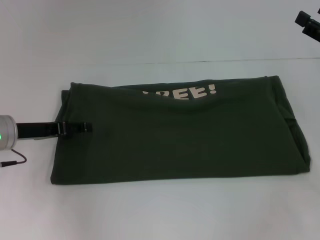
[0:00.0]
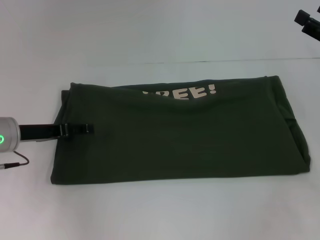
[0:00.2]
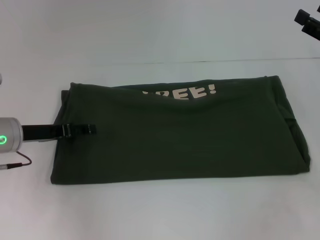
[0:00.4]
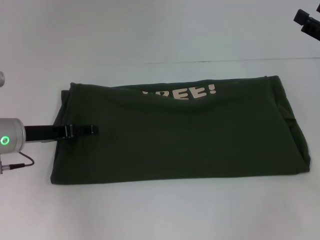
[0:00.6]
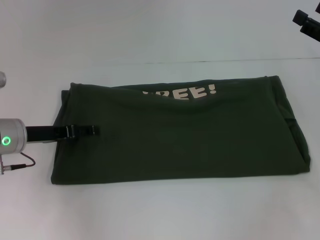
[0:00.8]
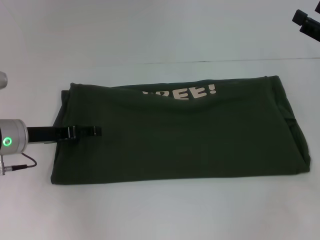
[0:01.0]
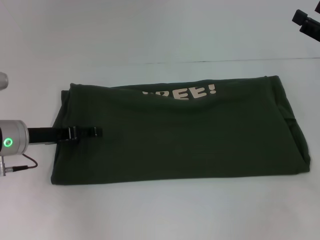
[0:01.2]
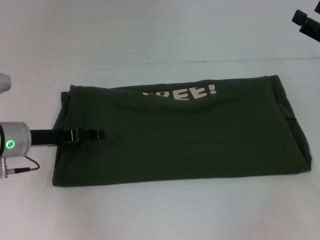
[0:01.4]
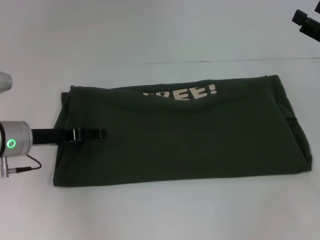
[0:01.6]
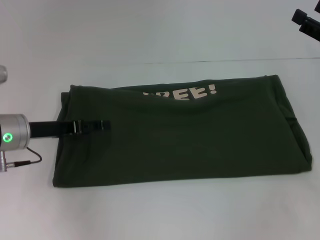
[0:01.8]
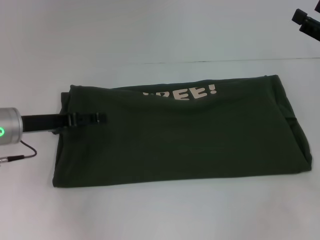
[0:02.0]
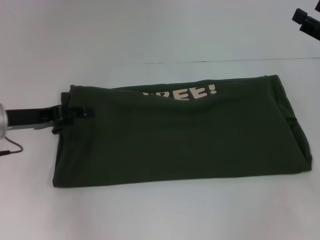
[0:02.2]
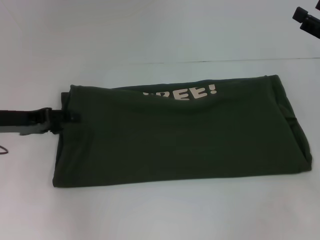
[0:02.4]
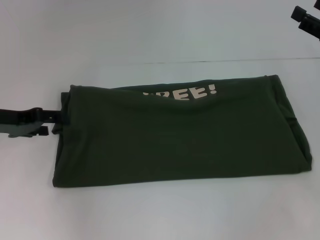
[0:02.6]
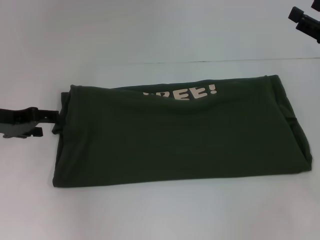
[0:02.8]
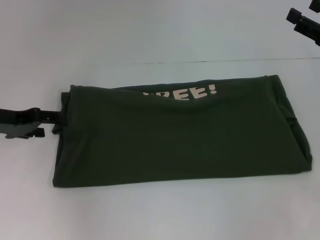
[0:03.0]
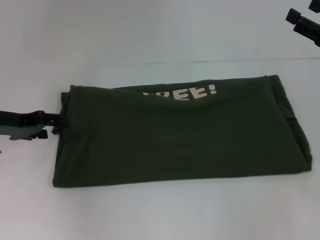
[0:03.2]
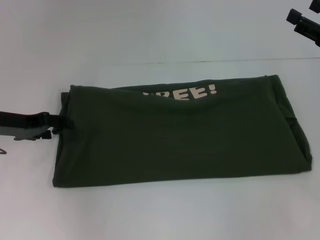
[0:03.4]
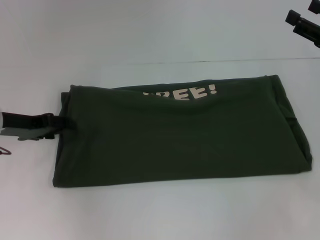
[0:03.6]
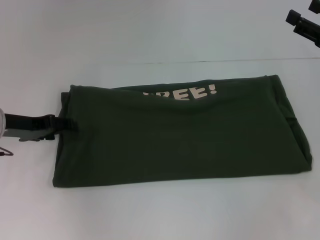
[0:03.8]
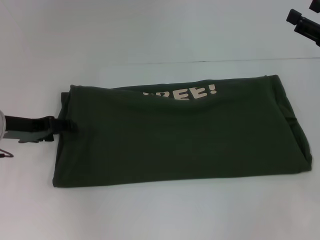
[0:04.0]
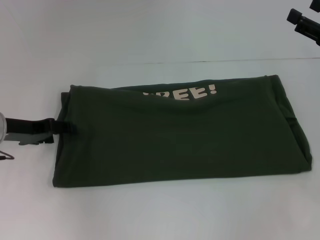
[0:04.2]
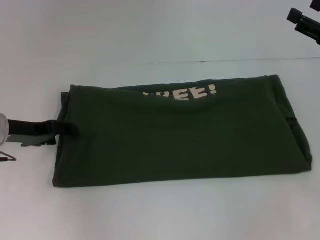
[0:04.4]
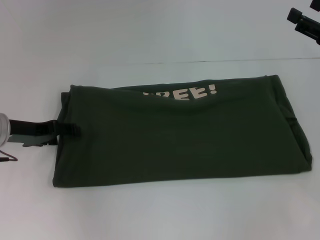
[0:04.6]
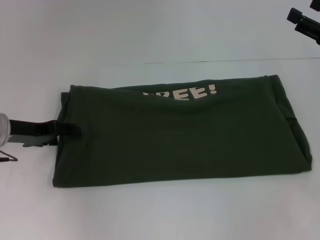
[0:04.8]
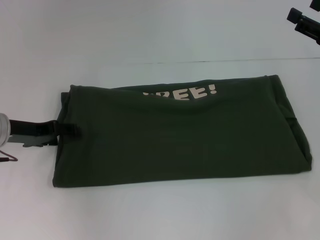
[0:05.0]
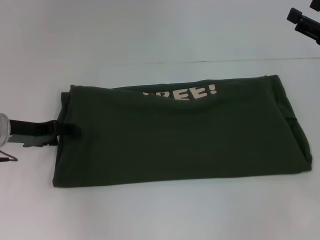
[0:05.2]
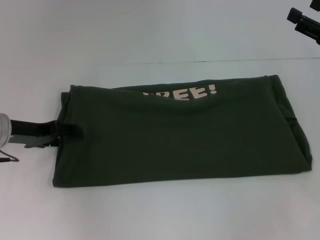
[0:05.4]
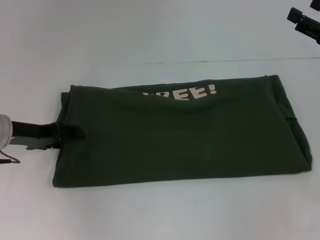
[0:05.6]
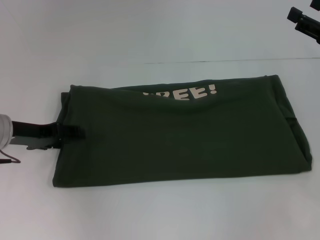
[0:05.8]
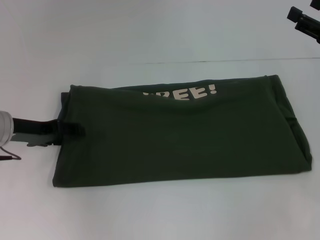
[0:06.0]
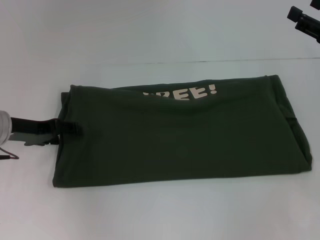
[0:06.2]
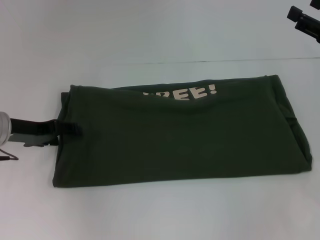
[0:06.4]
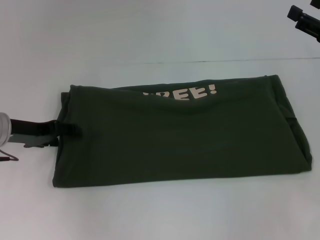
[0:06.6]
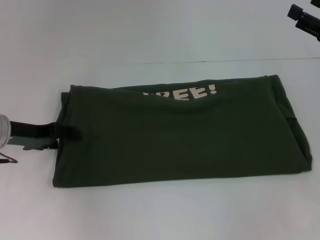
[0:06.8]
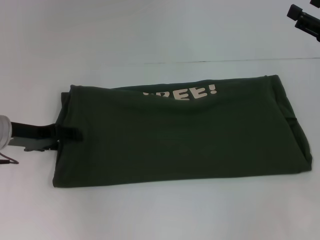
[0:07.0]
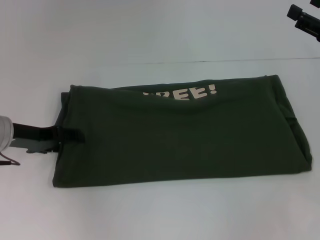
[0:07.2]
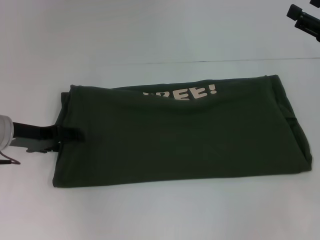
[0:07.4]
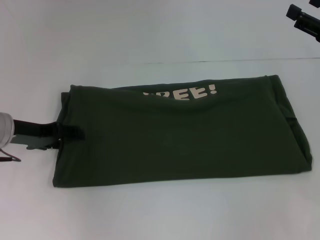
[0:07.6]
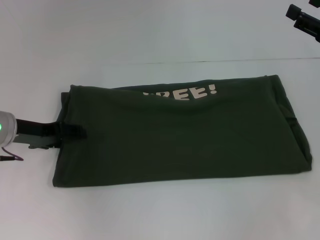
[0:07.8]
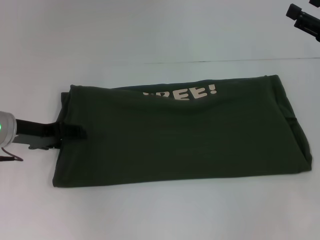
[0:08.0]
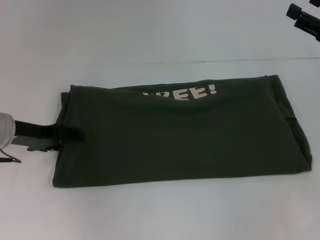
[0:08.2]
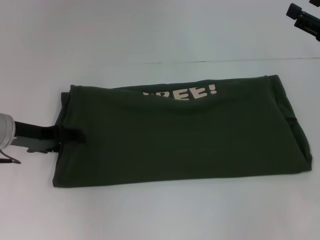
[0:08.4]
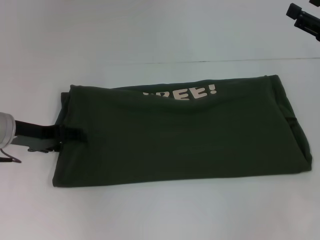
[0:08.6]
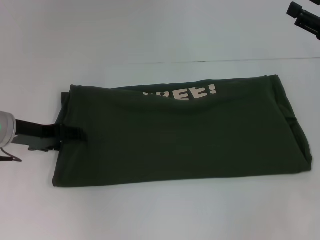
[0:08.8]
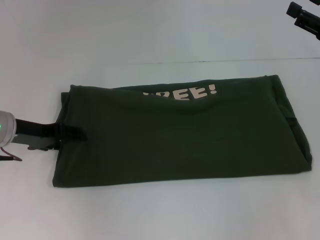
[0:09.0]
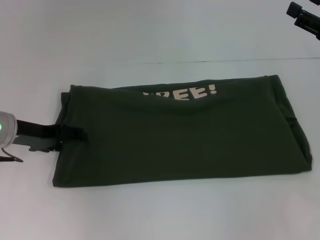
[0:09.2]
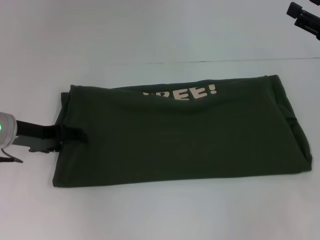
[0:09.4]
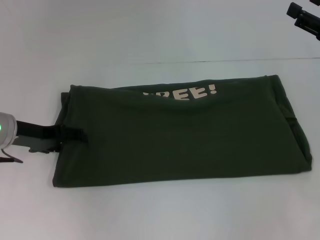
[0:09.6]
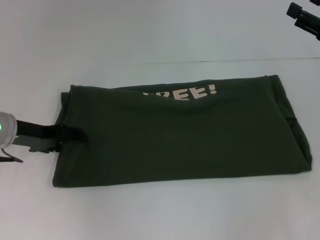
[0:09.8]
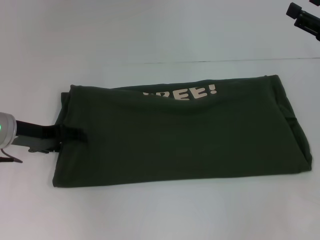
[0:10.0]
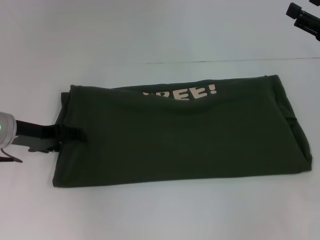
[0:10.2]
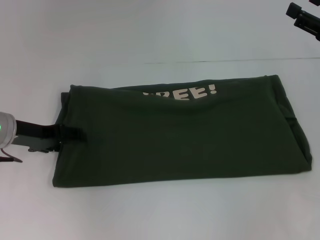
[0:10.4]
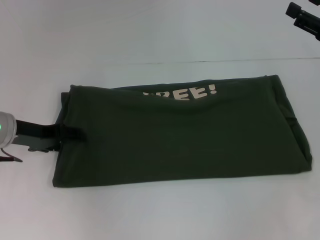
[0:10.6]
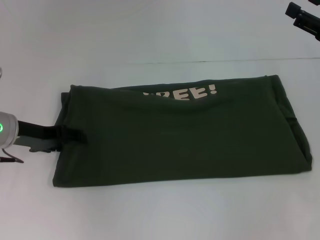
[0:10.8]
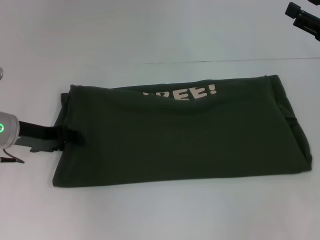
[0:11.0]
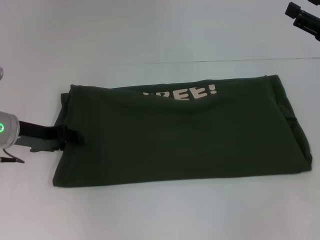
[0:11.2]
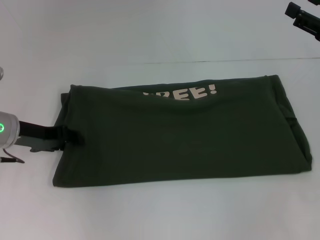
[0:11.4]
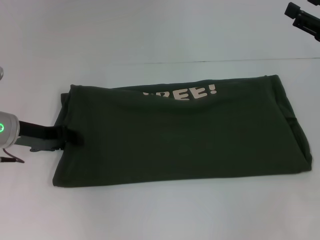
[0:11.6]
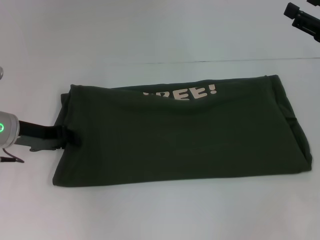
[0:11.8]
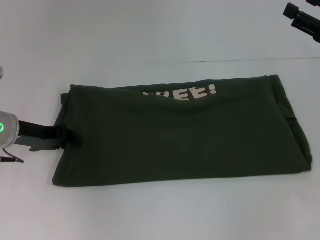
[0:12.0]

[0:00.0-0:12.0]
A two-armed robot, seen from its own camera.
0:00.0 to 0:01.6: The grippers stay close to where they were, moving slightly.
0:01.6 to 0:03.0: The left gripper moves to the left and upward, about 10 cm.
0:03.0 to 0:04.4: The grippers move only a little.
0:04.4 to 0:07.6: Neither gripper changes place.
0:07.6 to 0:10.4: The two grippers keep their place.
0:10.4 to 0:12.0: The left gripper closes.

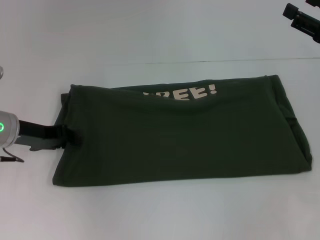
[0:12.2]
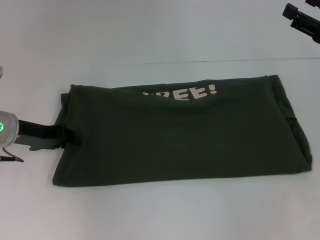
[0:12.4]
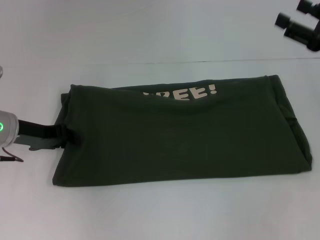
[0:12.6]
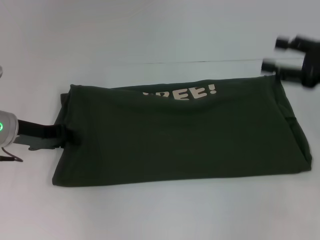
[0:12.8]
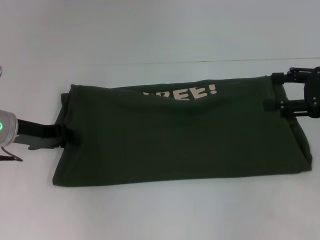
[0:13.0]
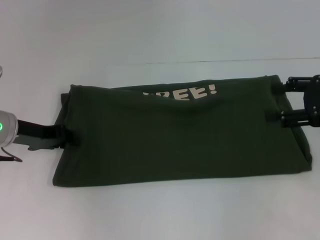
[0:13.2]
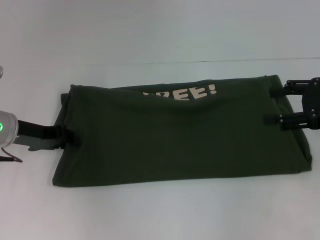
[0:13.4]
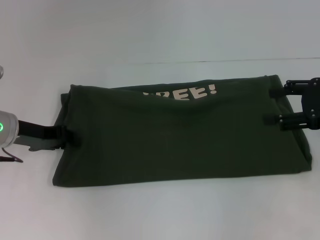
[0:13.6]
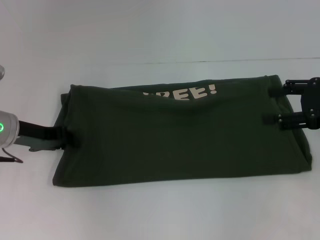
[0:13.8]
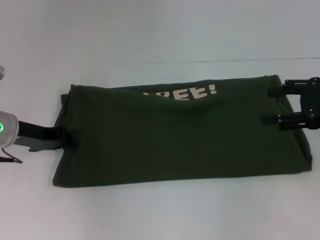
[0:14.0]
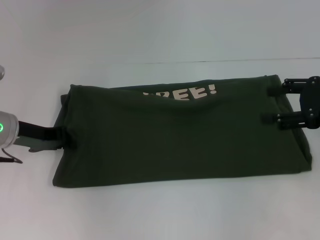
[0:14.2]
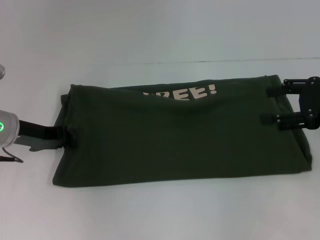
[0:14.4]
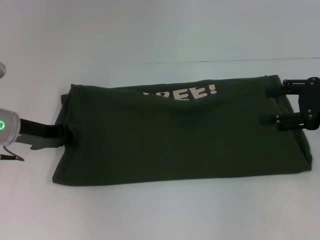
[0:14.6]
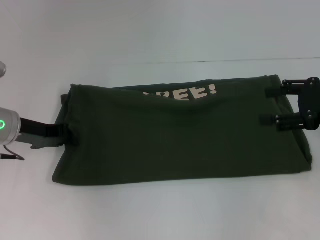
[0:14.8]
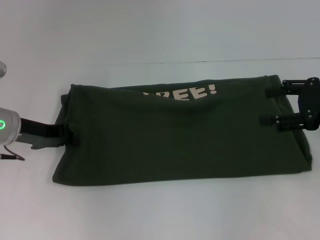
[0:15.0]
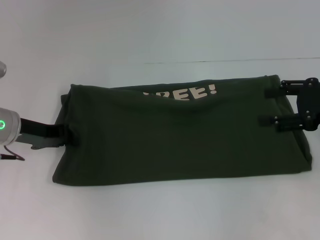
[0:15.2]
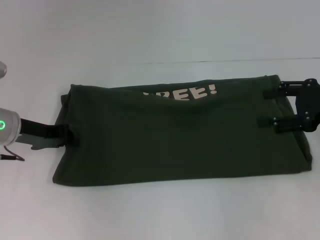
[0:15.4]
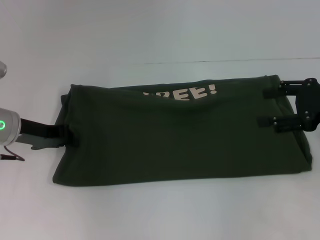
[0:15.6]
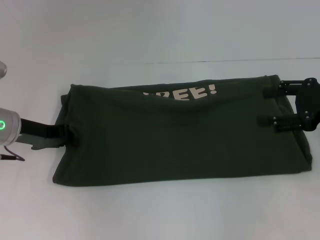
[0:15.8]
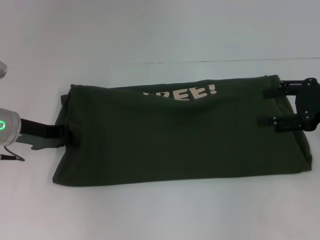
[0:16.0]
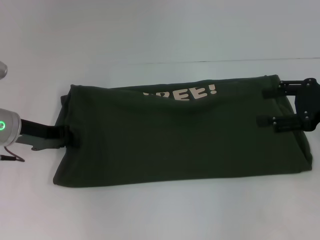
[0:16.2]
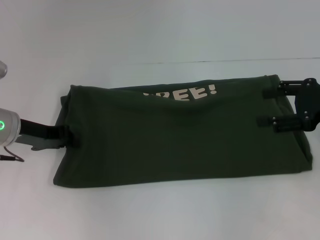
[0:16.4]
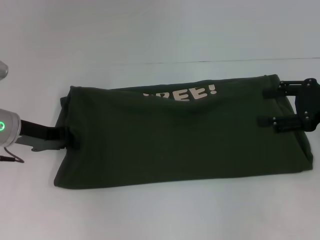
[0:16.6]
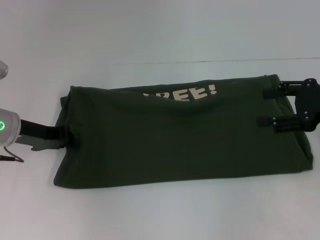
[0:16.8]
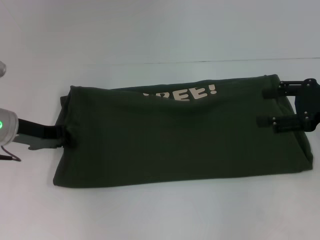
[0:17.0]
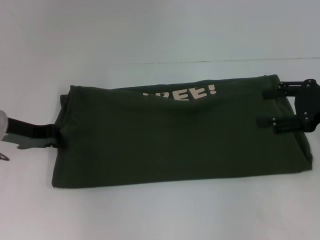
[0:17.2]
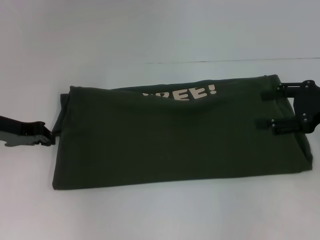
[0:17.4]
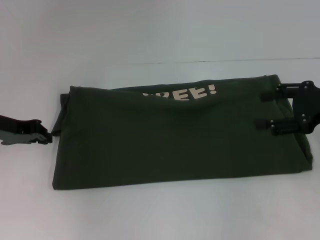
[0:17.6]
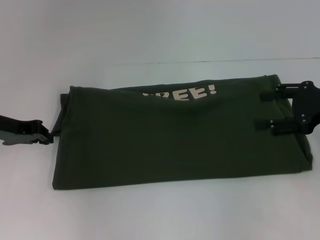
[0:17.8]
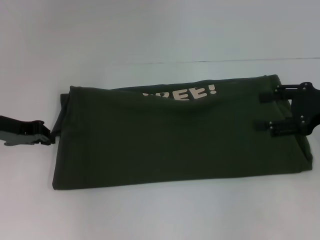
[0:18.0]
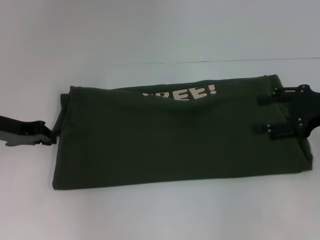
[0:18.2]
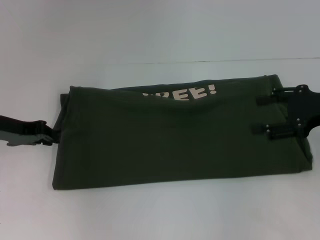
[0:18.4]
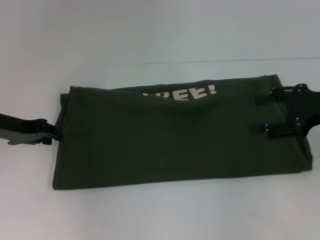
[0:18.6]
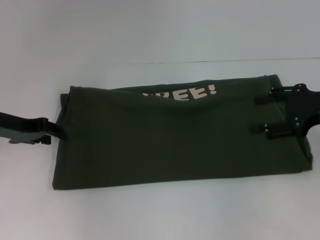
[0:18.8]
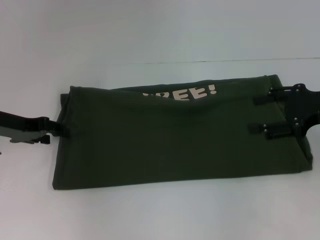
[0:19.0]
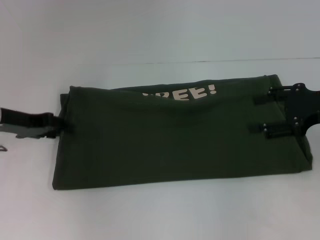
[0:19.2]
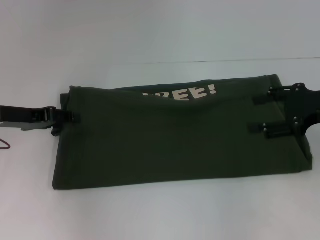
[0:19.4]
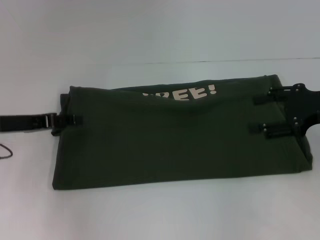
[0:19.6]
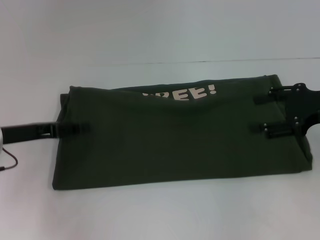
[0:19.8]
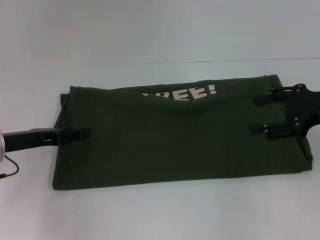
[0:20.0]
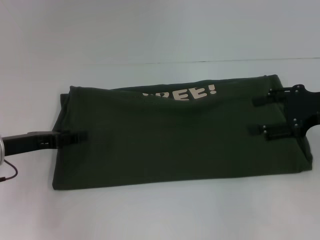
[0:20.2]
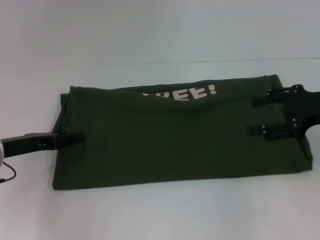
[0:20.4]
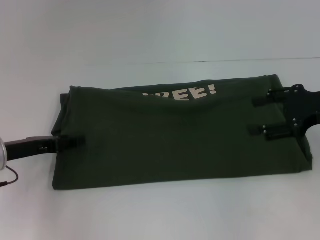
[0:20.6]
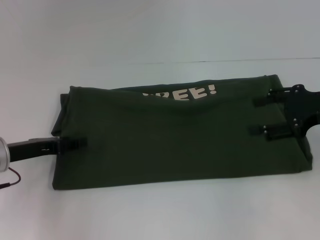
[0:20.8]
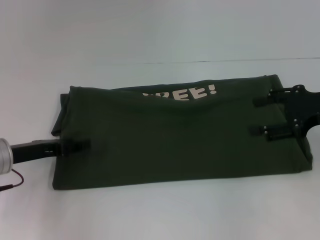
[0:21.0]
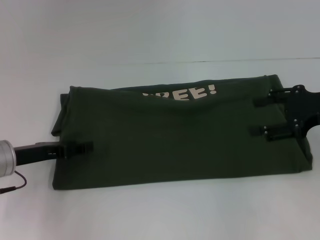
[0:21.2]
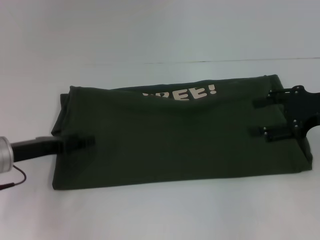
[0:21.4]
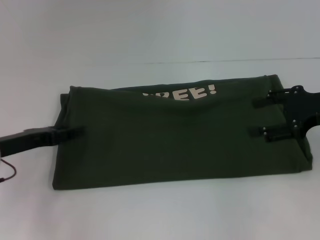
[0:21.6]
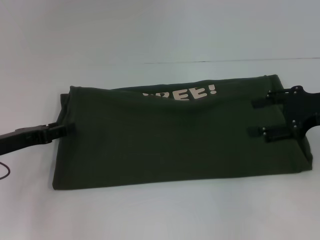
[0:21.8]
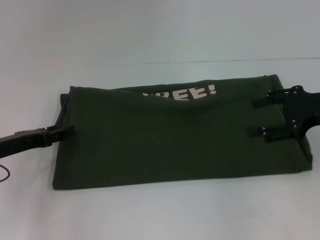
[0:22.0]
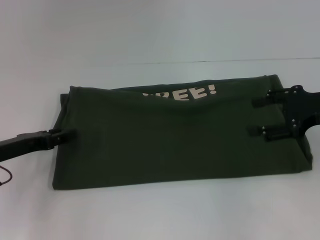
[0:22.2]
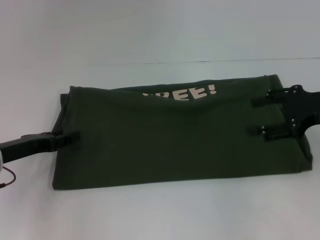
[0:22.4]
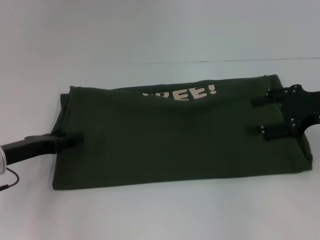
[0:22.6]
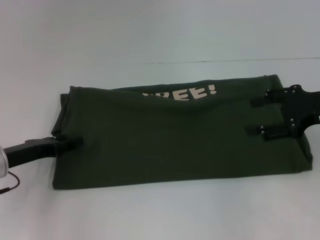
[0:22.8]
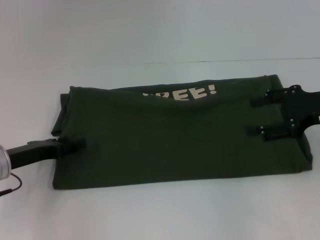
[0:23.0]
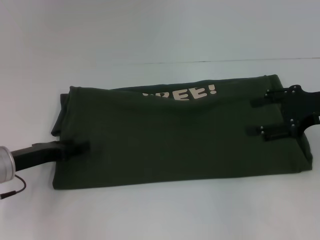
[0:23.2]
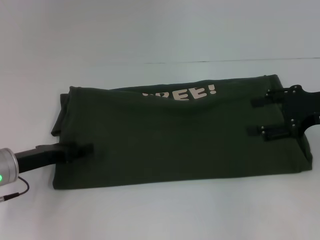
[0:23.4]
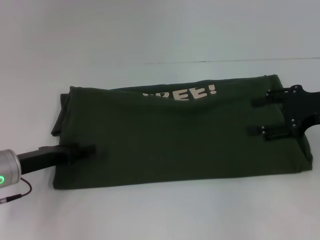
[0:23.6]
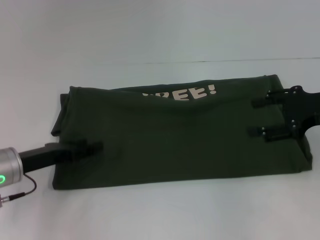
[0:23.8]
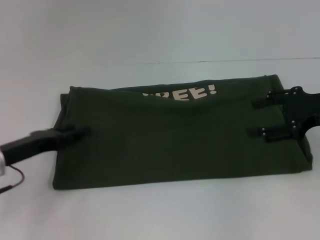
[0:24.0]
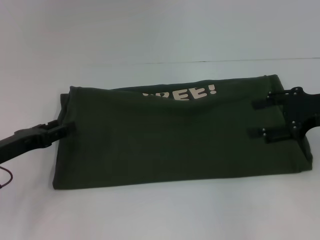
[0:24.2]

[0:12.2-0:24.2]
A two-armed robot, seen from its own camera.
0:13.8 to 0:16.6: Both grippers stay about where they are.
0:16.6 to 0:18.2: The grippers move only a little.
0:18.2 to 0:19.8: The left gripper opens up.
0:19.8 to 0:24.2: The grippers stay close to where they were, moving slightly.
